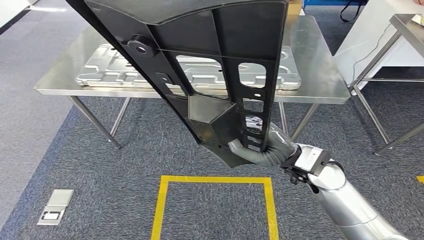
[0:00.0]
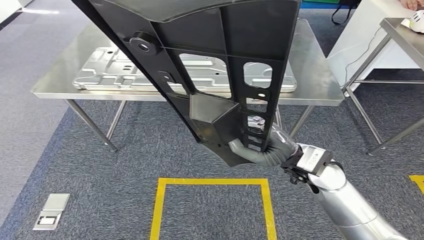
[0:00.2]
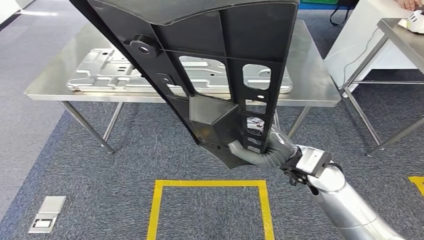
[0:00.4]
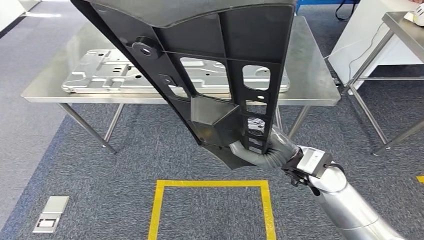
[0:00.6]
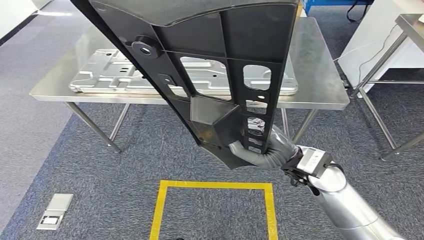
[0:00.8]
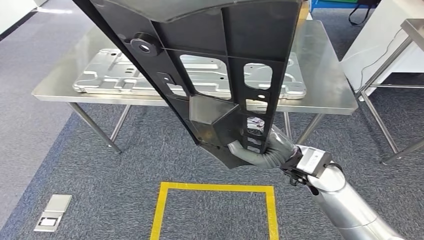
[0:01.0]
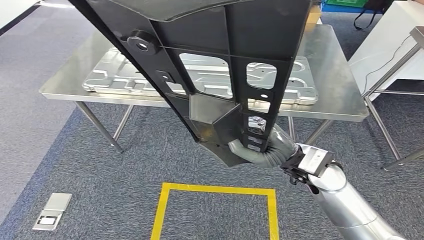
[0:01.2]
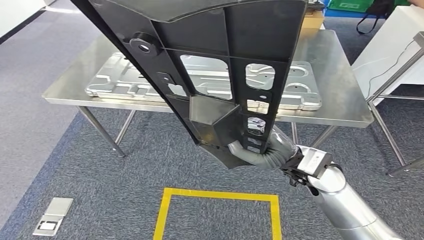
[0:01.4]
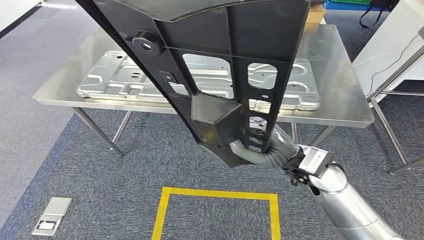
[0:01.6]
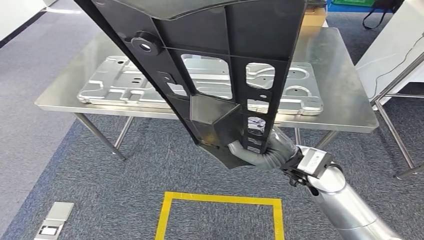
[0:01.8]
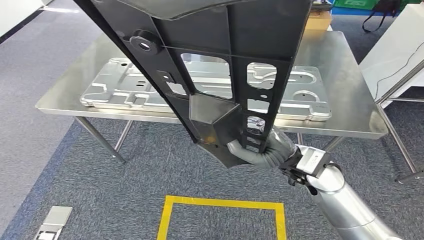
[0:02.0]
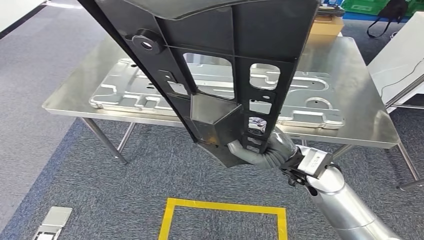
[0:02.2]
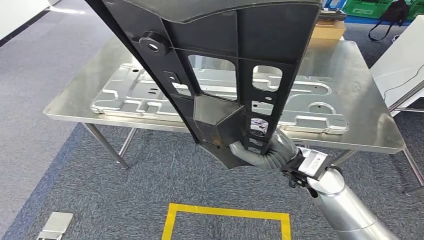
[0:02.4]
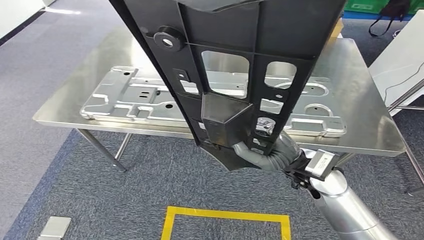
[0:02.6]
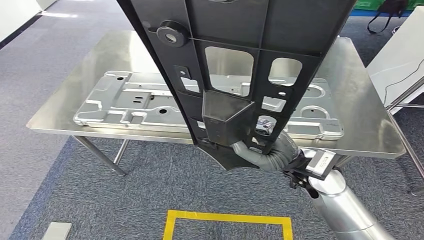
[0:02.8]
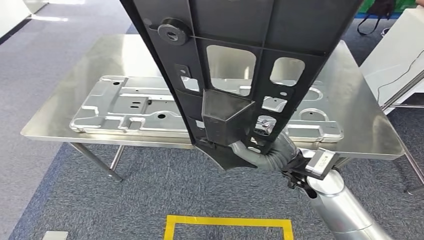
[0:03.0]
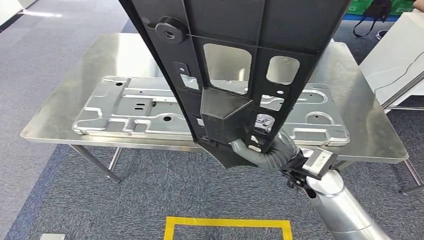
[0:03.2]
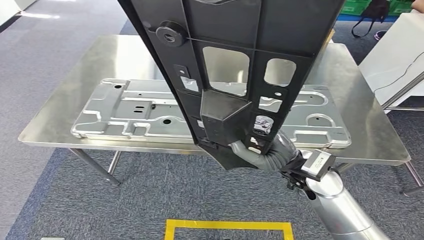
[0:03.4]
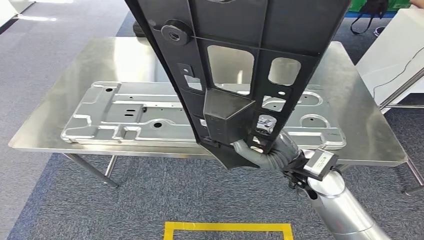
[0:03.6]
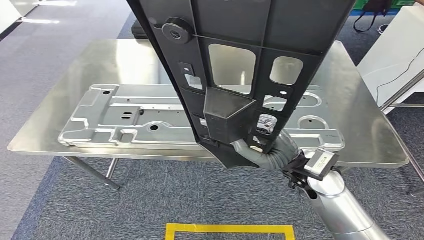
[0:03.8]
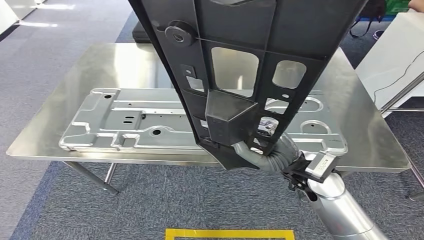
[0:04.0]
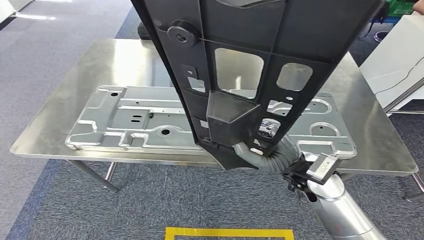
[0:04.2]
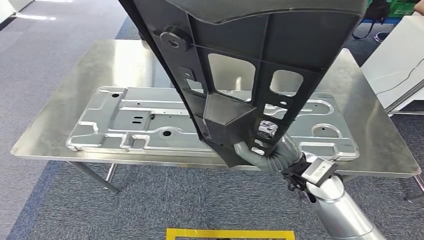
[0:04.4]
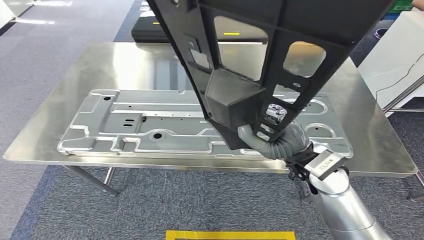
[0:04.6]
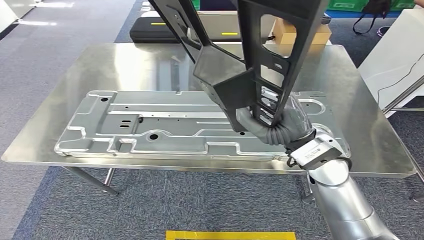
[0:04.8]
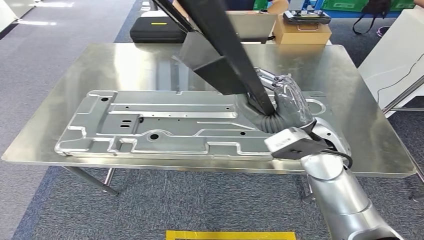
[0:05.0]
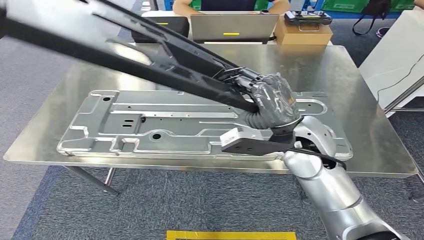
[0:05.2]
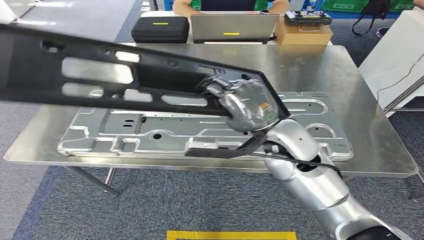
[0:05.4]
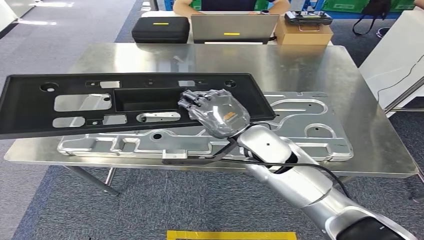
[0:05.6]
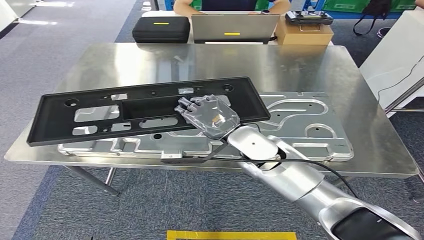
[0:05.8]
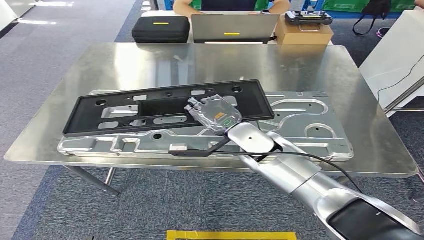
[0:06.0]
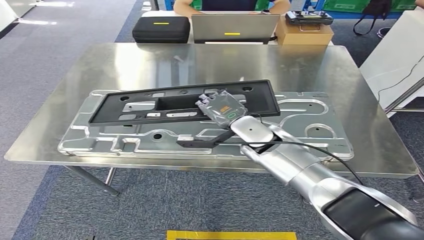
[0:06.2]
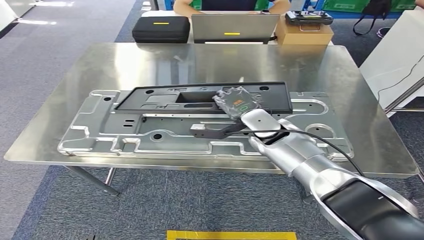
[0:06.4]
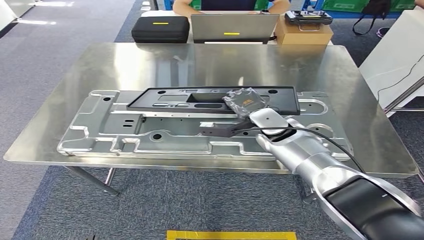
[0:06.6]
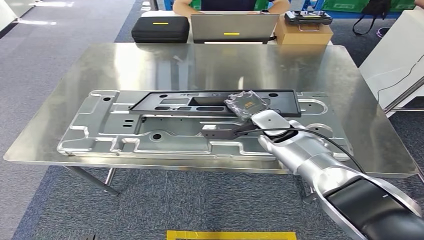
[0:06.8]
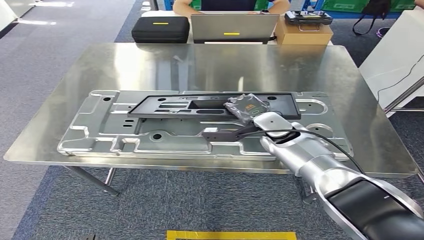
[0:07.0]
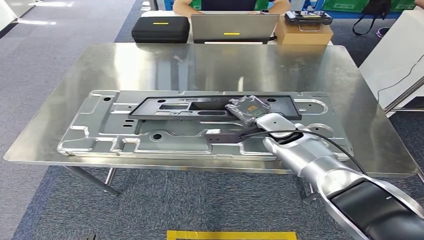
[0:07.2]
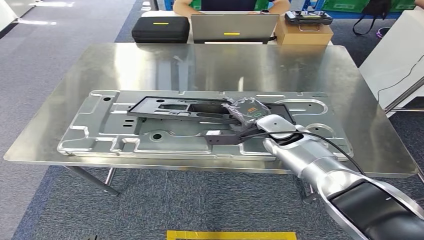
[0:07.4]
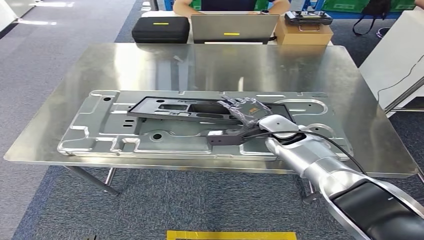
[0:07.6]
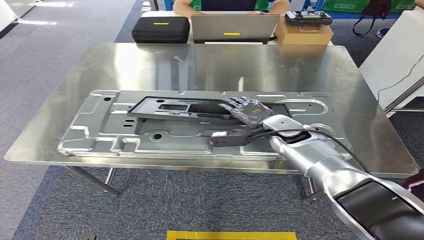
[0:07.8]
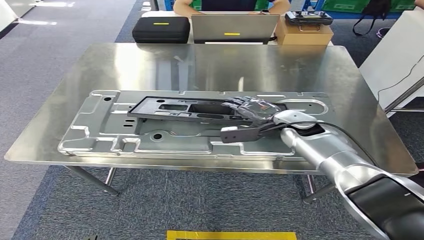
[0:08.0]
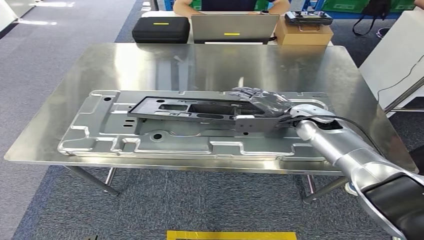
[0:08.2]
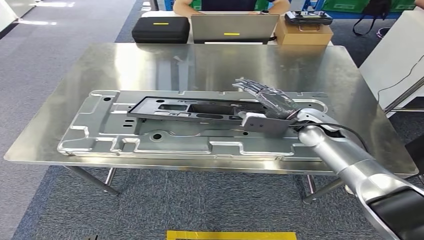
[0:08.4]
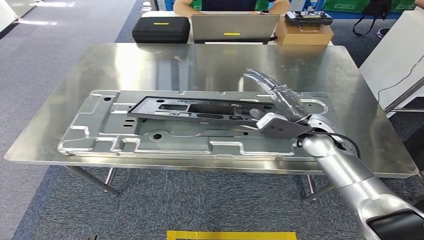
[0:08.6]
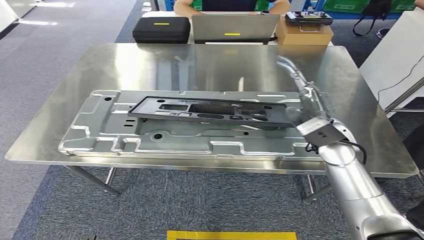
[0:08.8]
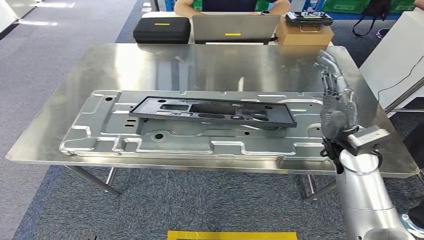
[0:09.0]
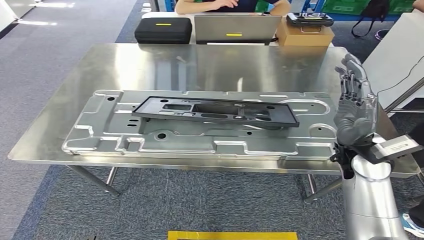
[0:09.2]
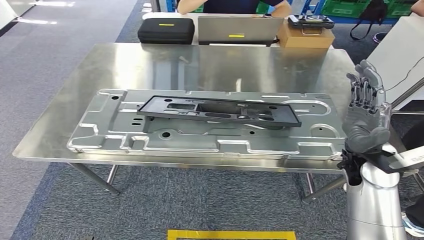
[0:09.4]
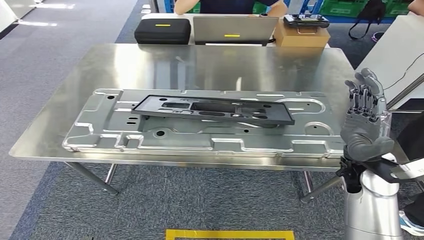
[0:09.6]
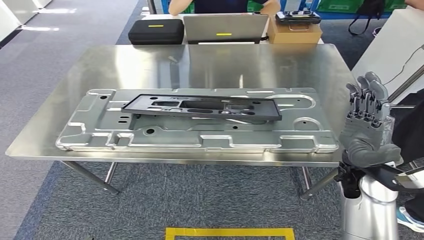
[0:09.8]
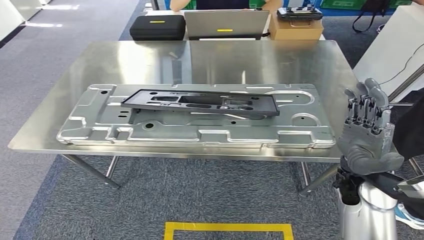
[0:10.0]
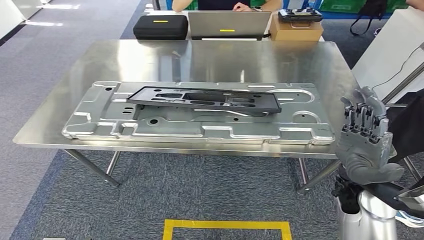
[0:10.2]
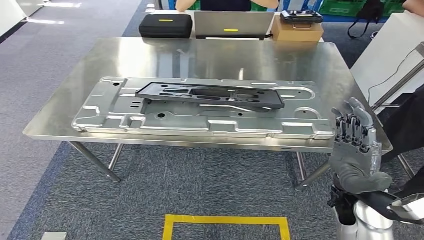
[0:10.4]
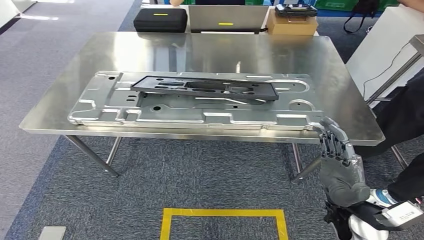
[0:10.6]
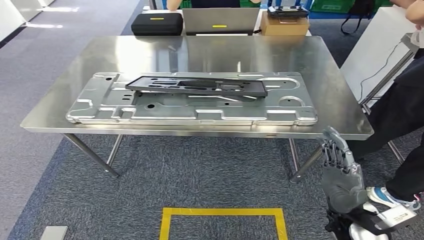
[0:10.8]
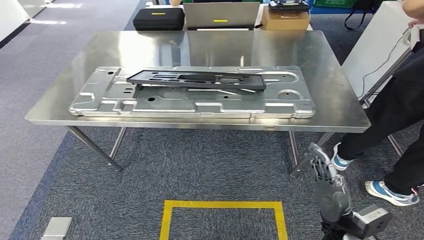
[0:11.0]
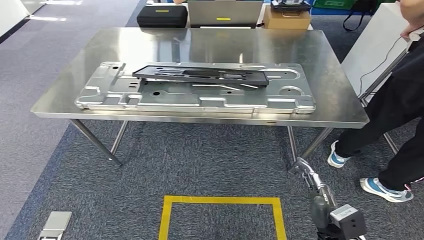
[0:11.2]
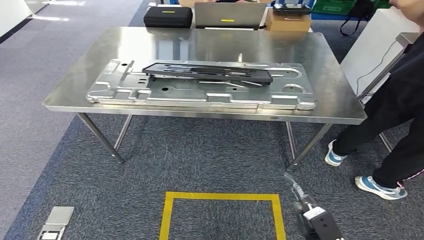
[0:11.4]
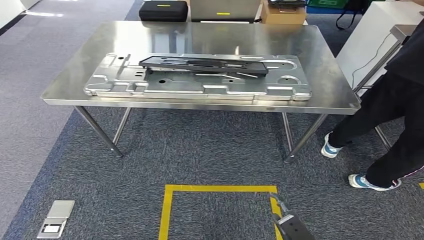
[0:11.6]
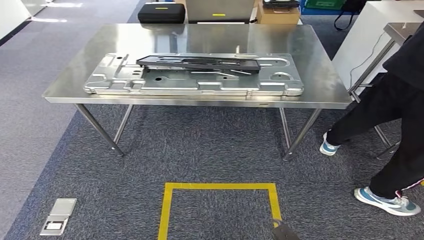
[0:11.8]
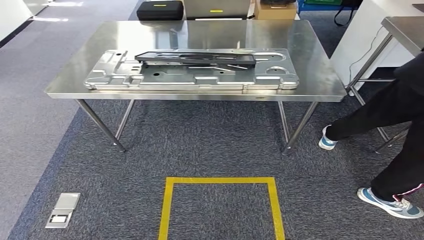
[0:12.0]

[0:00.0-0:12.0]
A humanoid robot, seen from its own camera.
Step, 0:00.0 to 0:04.8: Move the small component to the workbench.
Step, 0:05.2 to 0:10.6: Insert the small component into the corresponding slot on the workbench.
0:06.0 to 0:07.6: The right hand heads to the right and forward, covering about 10 cm.
0:07.6 to 0:09.0: The right hand travels backward, to the right and upward by some 15 cm.

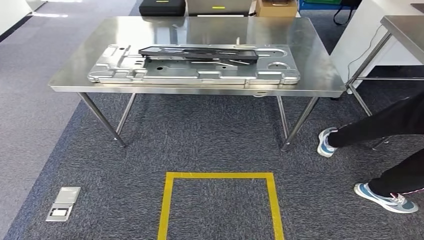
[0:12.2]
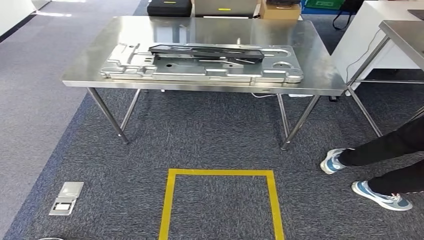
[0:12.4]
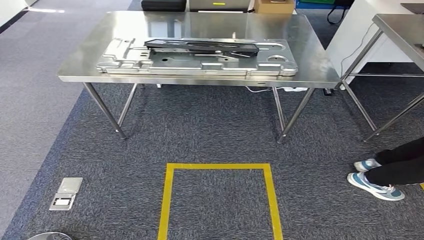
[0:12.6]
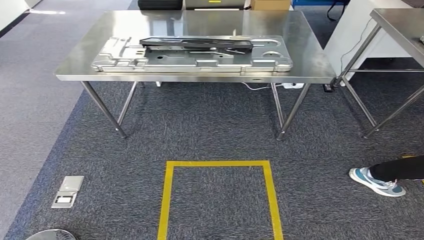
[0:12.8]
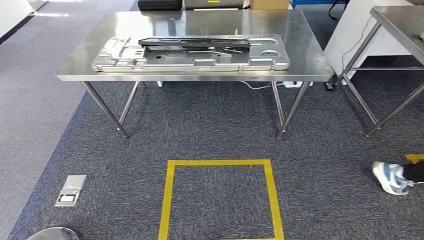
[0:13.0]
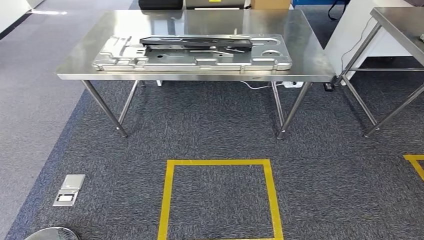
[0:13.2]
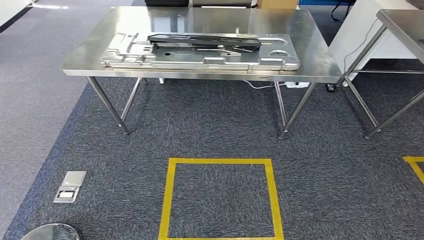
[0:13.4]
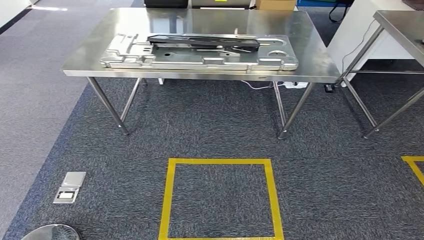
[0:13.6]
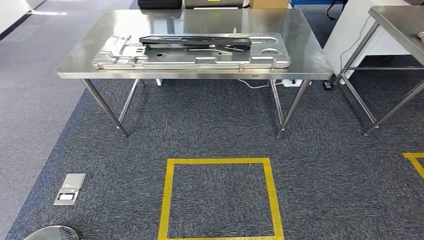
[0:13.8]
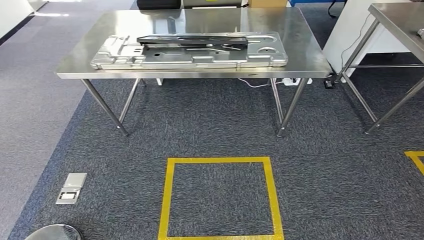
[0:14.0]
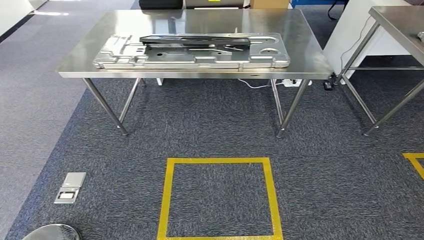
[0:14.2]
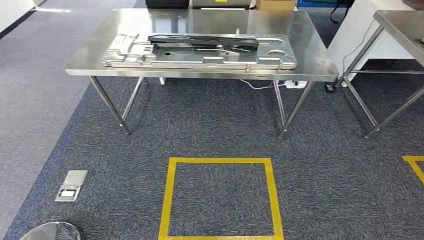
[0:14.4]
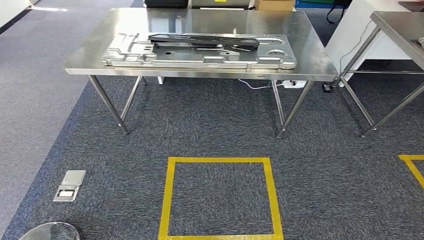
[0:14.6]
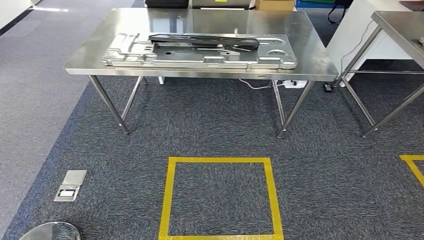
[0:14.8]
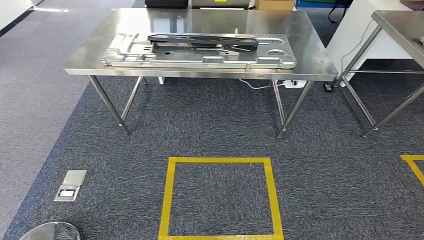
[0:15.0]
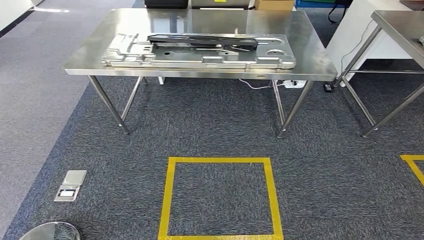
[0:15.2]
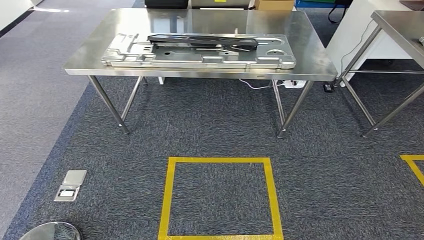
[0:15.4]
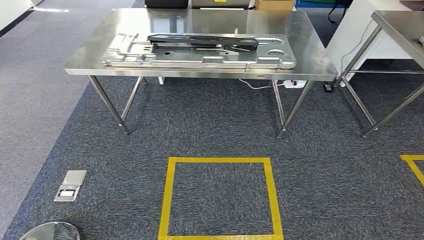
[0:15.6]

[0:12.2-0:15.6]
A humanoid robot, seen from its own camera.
Step, 0:12.2 to 0:15.6: Return to the initial position at the workbench.
0:13.8 to 0:15.6: The left hand is displaced backward by roughly 5 cm.
